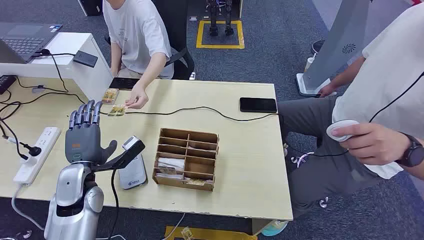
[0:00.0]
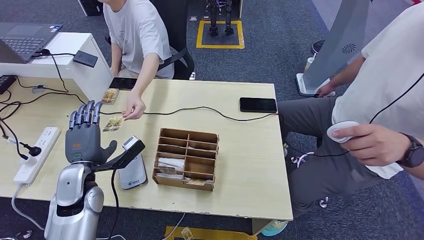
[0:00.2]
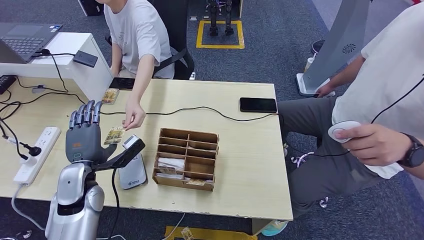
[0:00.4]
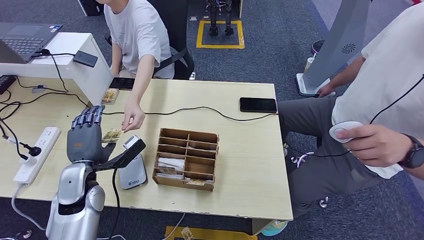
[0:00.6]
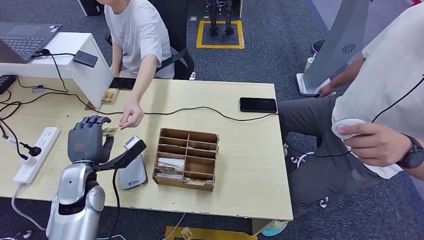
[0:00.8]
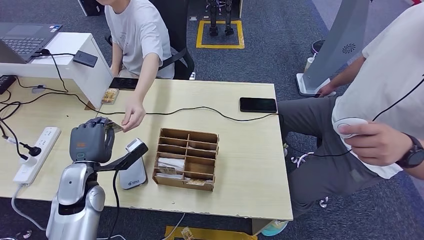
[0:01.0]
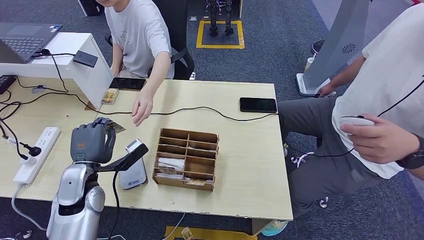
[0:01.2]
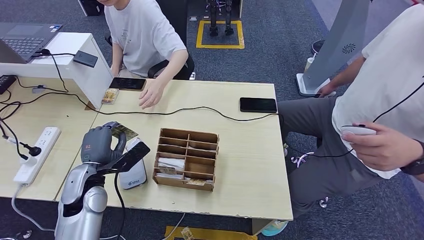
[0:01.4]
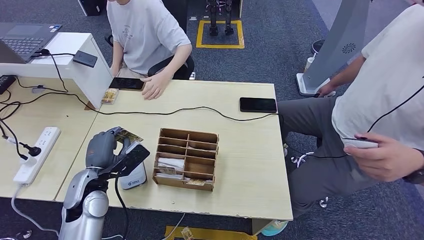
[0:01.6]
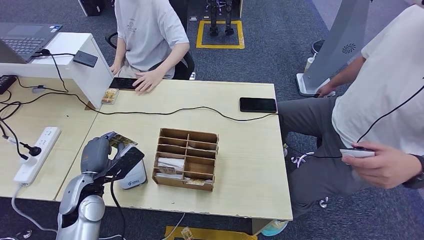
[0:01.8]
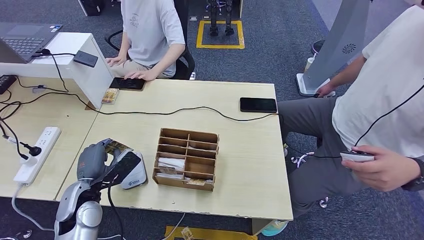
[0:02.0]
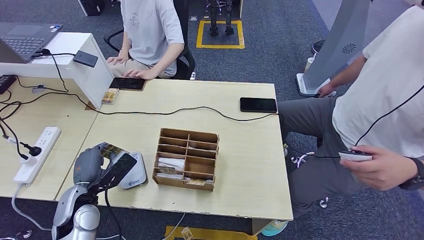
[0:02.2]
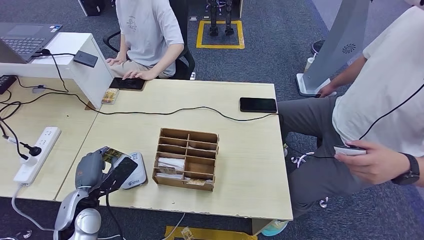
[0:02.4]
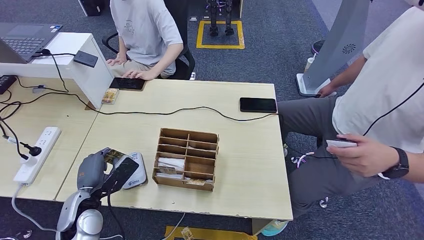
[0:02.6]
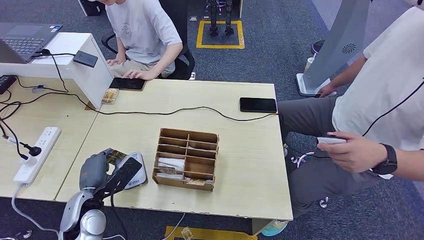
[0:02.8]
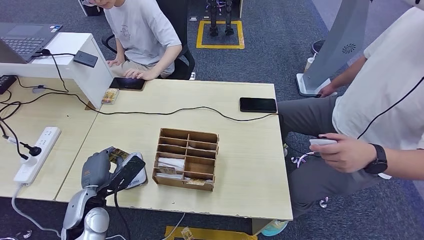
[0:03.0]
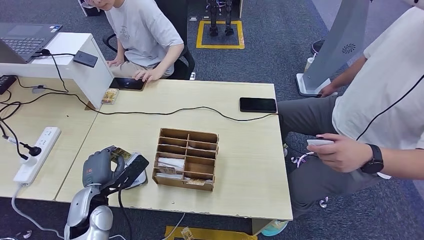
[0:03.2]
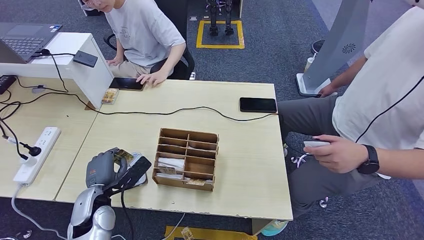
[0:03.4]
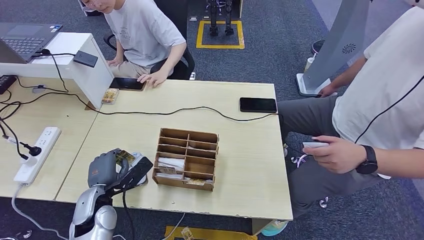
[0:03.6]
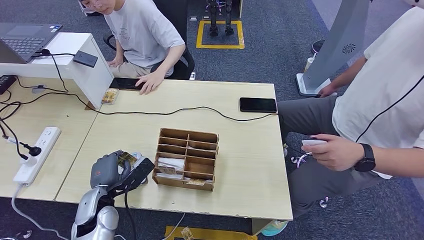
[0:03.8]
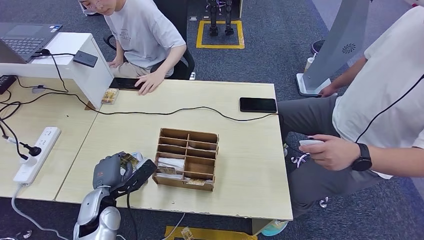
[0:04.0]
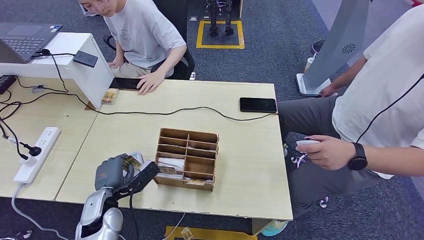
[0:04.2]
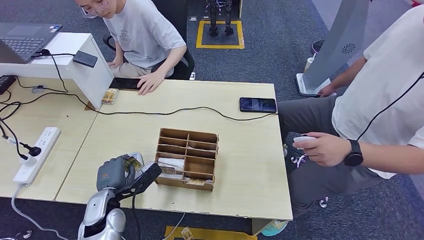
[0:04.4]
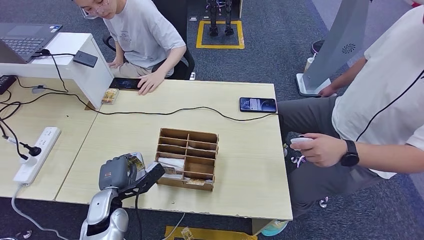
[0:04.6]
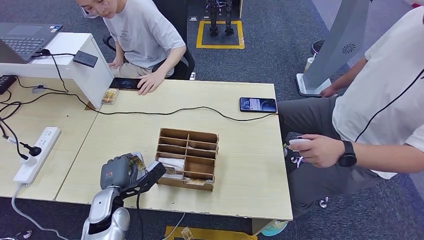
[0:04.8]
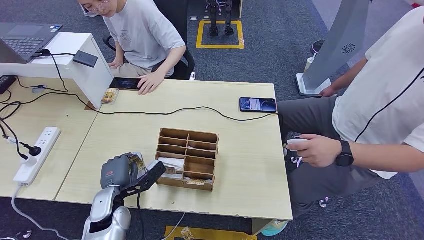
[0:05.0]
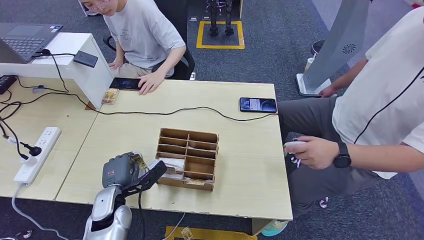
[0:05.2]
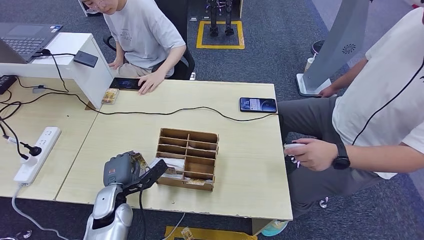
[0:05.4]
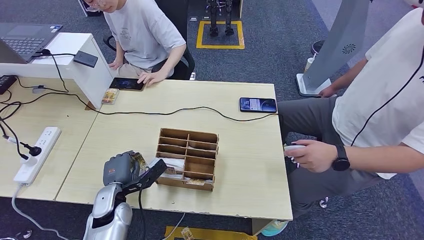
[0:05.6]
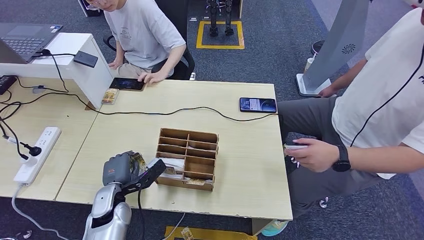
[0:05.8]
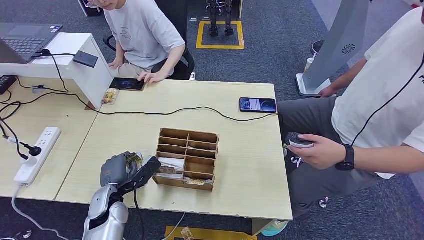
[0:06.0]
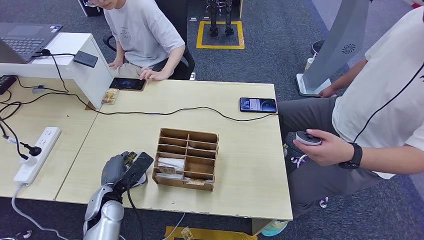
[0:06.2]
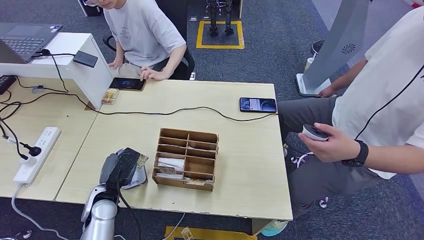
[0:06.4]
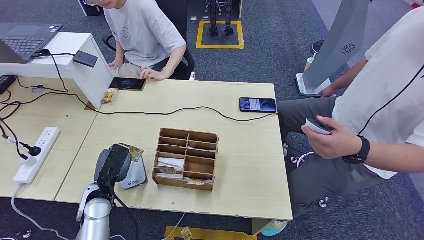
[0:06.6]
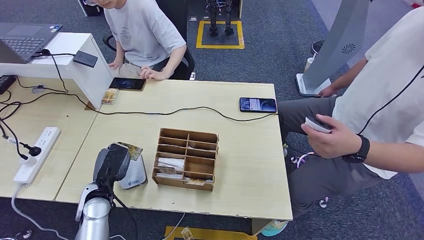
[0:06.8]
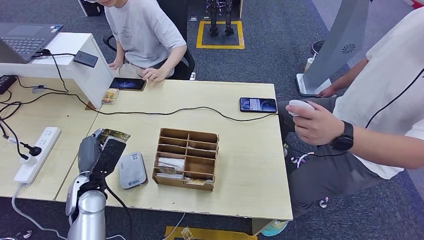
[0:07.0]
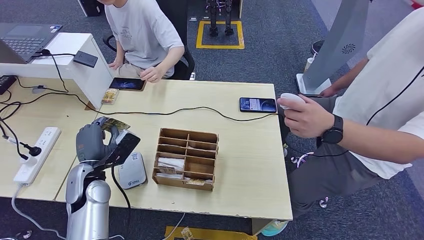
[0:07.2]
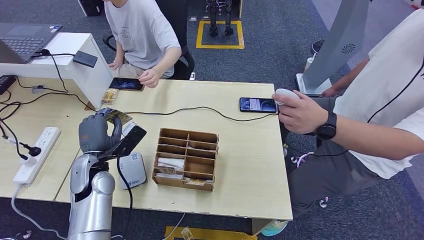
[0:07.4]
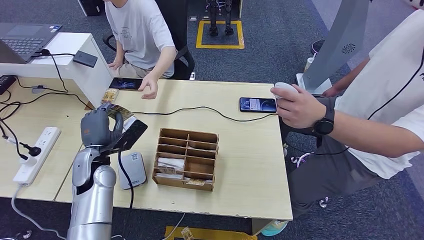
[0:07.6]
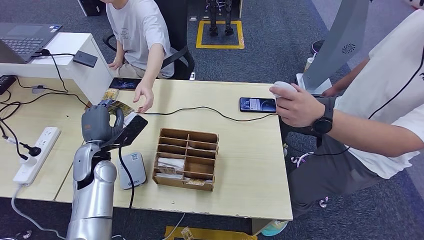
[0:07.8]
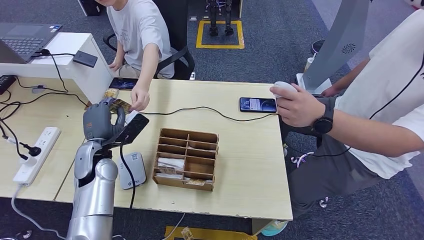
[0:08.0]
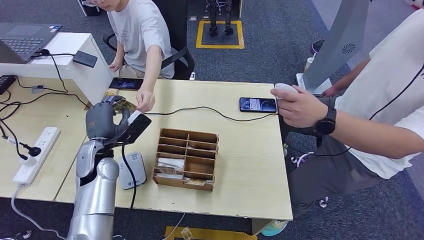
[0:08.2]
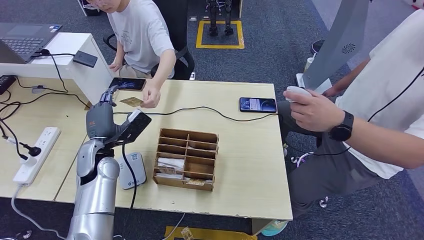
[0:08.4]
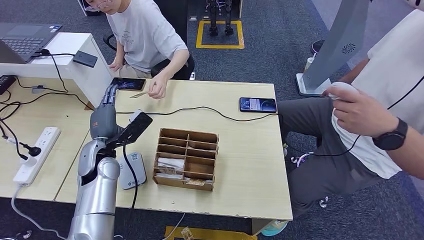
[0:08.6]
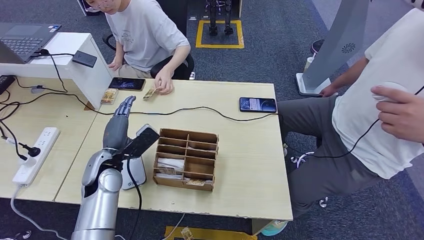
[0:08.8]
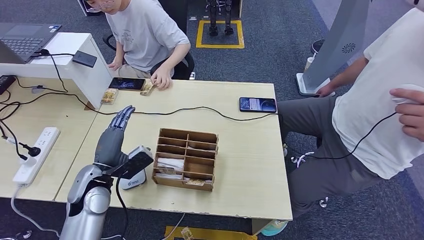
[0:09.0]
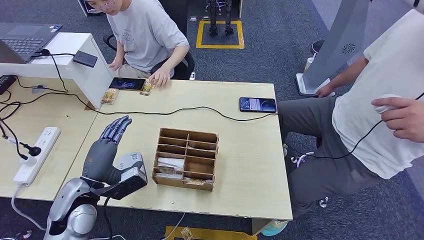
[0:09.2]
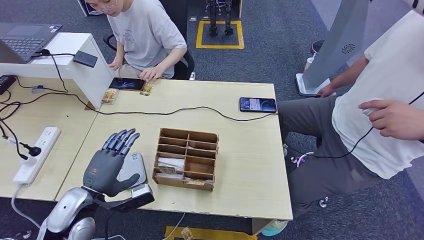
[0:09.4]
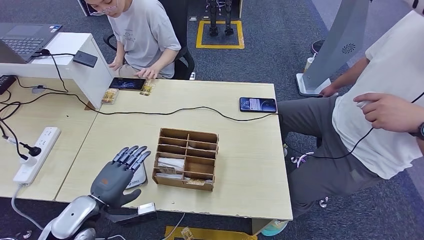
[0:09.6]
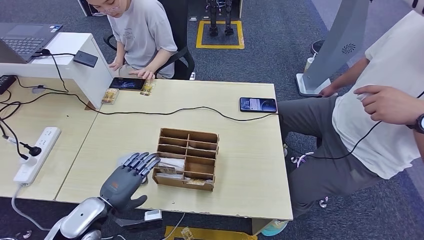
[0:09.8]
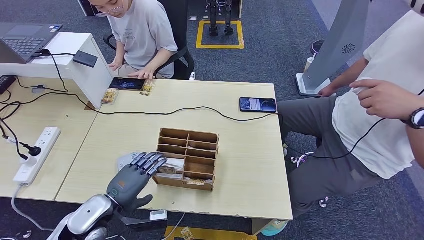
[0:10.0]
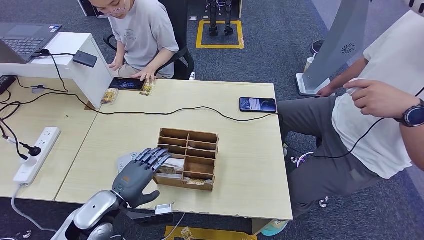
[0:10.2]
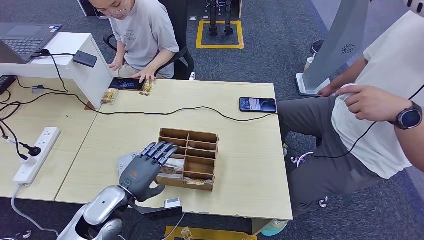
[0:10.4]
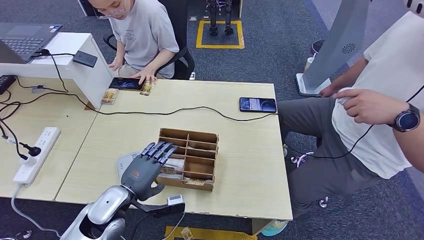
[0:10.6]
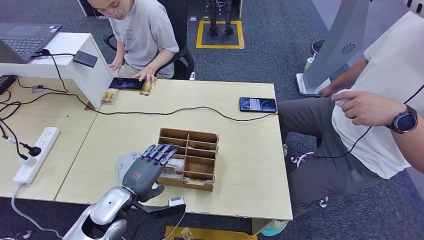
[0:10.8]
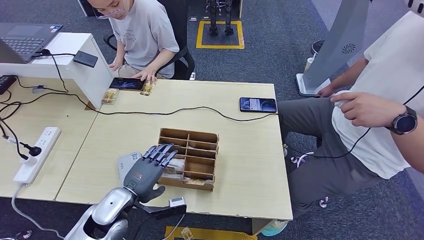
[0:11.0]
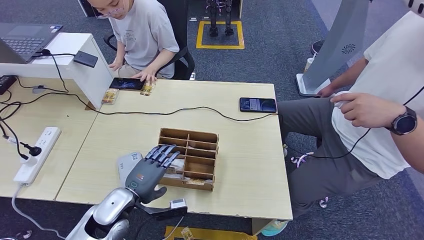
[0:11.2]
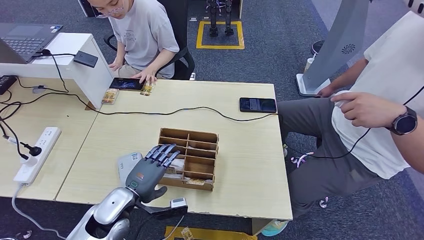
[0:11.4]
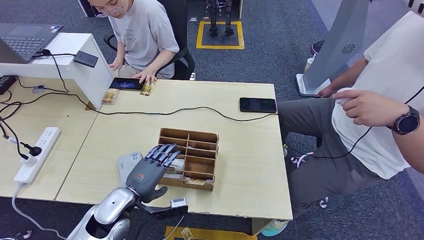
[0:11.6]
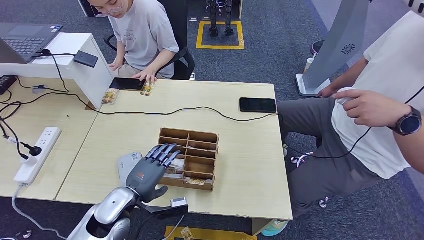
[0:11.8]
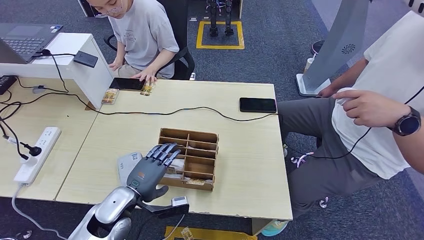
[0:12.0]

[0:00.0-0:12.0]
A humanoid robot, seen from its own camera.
Step, 0:00.0 to 0:01.0: Take the ID card from the person's hand.
Step, 0:01.4 to 0:05.6: Place the ID card on the card reader.
Step, 0:06.0 to 0:09.2: Hand the ID card to the person.
0:01.6 to 0:03.0: The hands move only a little.
0:03.0 to 0:06.0: The hands stay close to where they were, moving slightly.
0:06.0 to 0:07.6: The left hand moves upward and forward, roughly 10 cm.
0:09.0 to 0:10.4: The left hand moves some 5 cm.
0:10.4 to 0:12.0: There are only small adjustments of the hands.

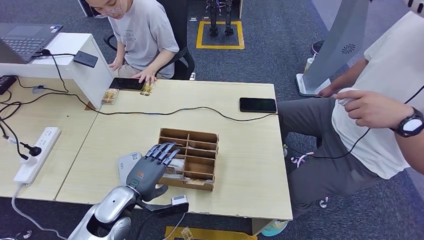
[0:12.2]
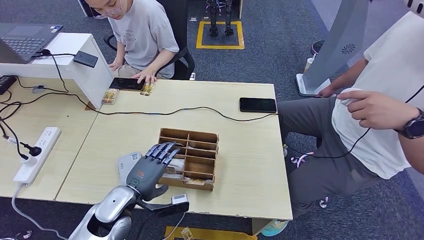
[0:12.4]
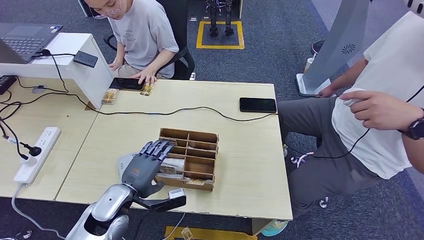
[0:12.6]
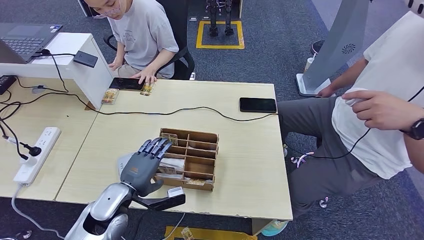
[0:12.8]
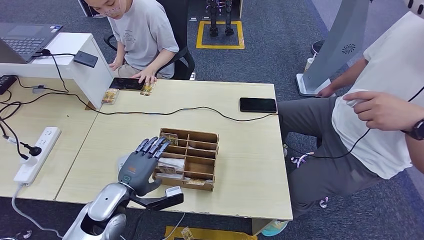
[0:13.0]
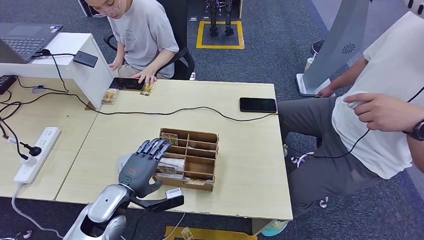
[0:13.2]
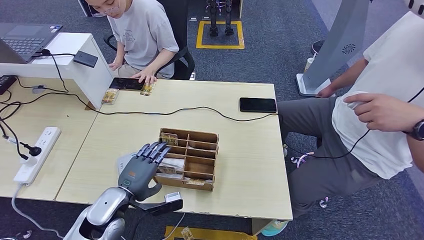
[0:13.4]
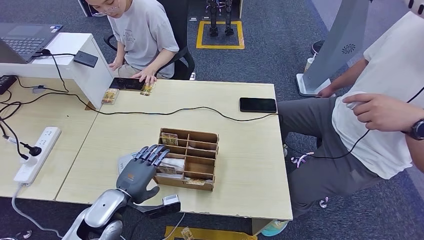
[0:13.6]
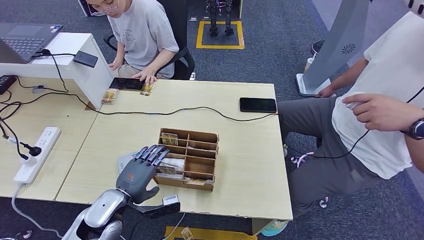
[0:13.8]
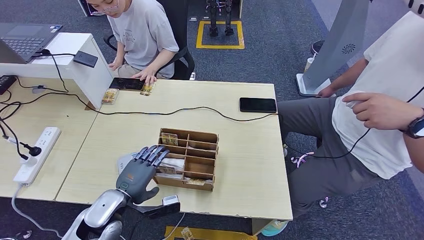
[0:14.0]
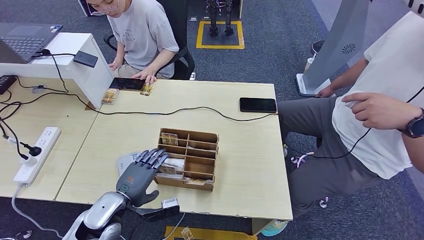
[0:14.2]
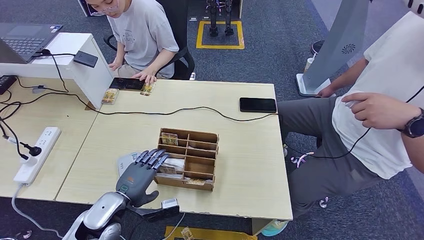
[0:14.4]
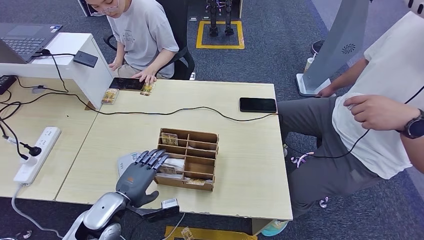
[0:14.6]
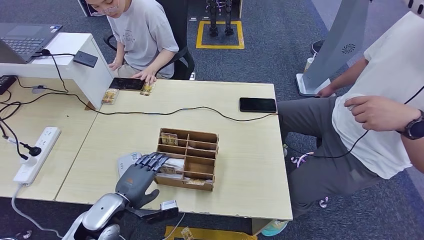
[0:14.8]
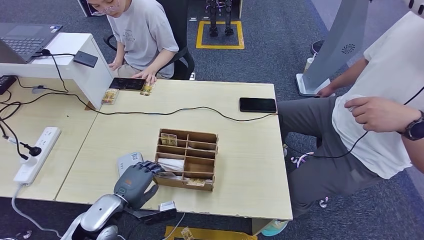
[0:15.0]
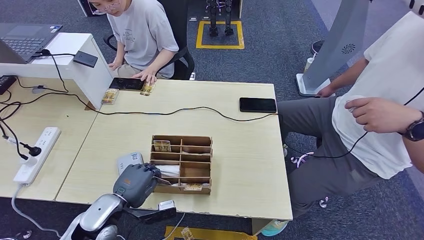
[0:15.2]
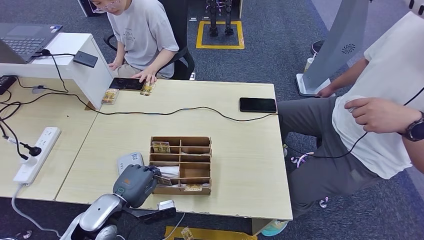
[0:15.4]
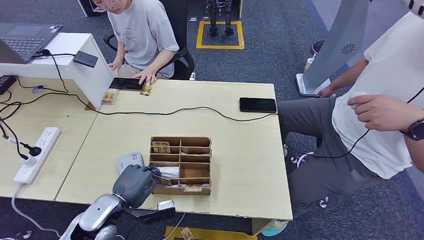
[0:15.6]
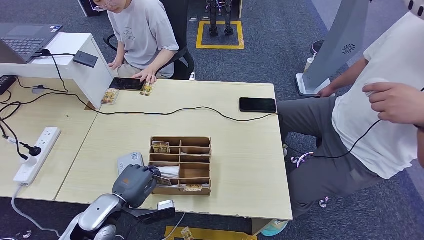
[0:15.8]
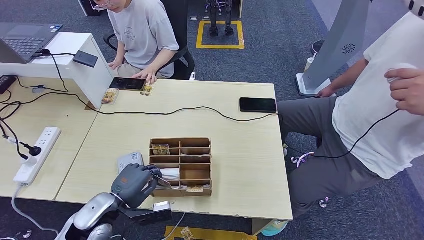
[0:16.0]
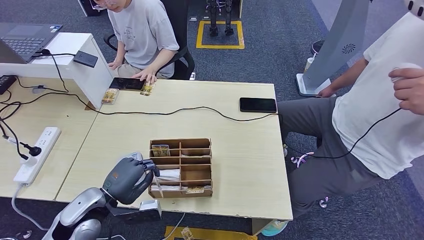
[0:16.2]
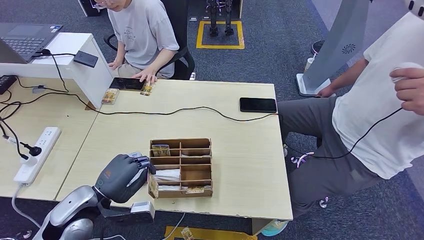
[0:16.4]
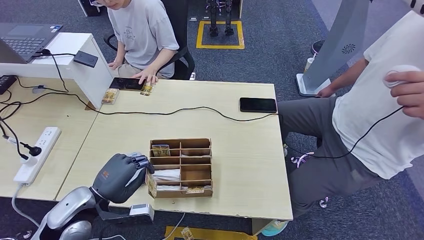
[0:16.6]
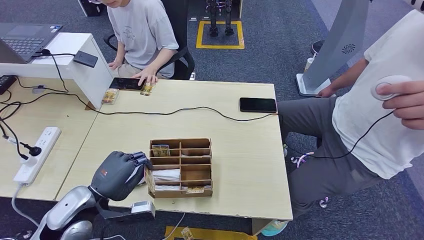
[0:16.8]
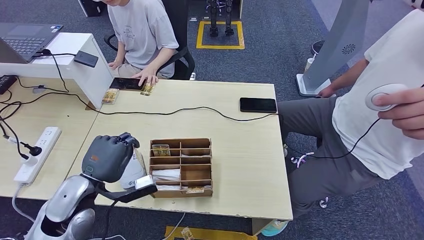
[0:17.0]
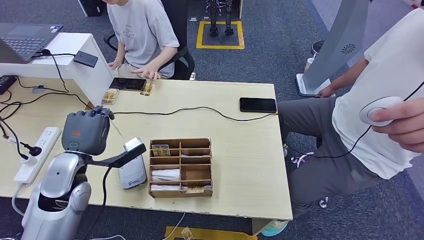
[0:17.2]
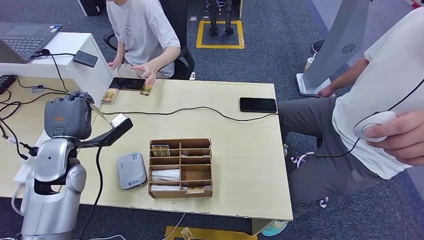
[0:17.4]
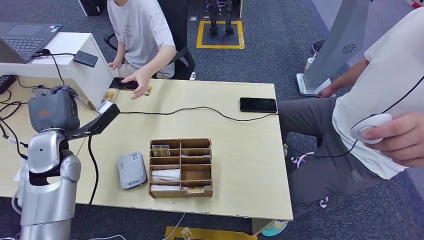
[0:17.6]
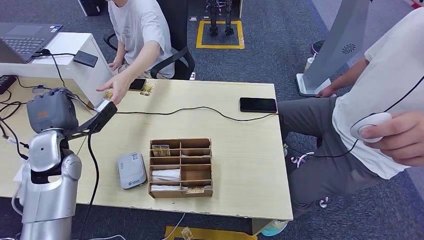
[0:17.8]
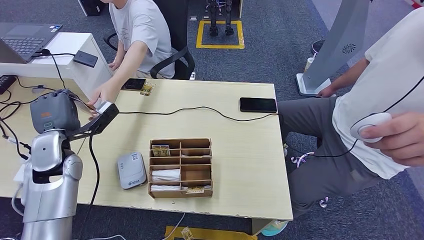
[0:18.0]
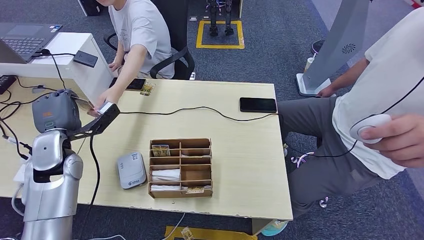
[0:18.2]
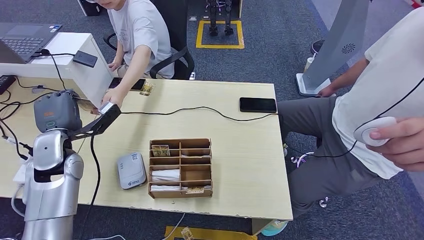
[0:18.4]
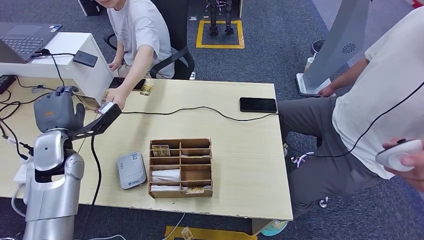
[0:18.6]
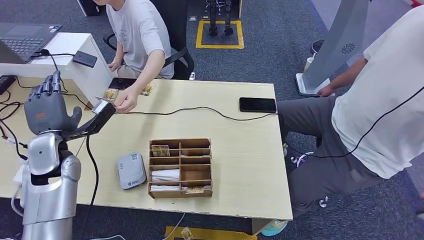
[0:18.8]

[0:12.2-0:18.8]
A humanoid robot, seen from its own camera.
Step, 0:12.2 to 0:16.2: Pick up the room key from the key card box.
0:12.2 to 0:15.4: There are only small adjustments of the hands.
0:15.4 to 0:17.2: The left hand moves upward, forward and to the left, some 15 cm.
0:17.2 to 0:18.8: The left hand goes roughly 5 cm to the left.
